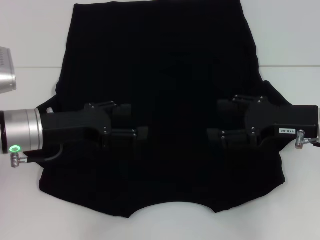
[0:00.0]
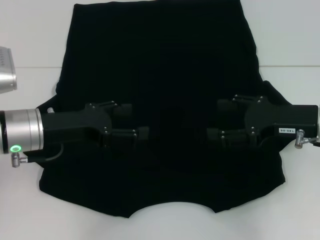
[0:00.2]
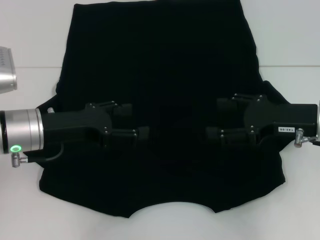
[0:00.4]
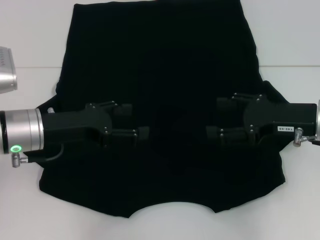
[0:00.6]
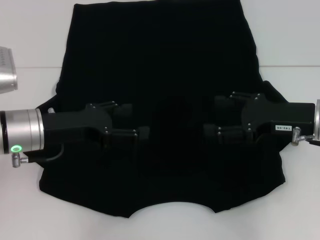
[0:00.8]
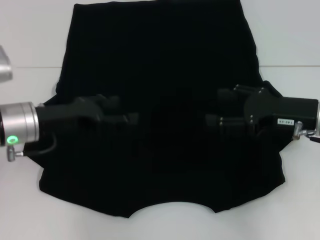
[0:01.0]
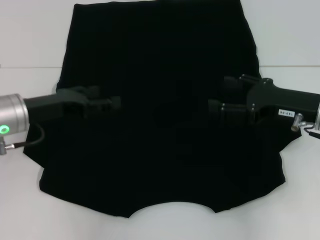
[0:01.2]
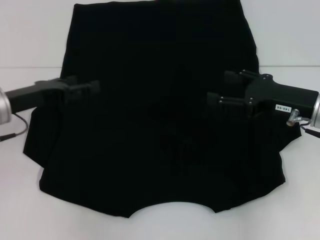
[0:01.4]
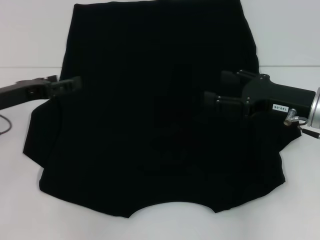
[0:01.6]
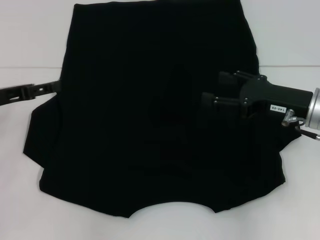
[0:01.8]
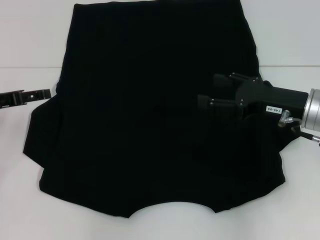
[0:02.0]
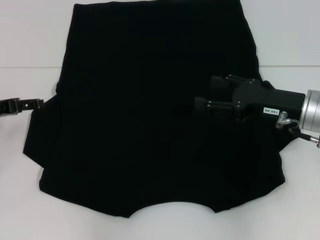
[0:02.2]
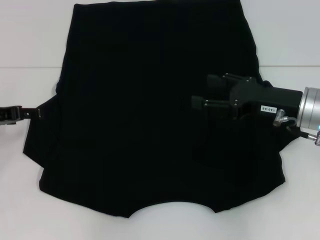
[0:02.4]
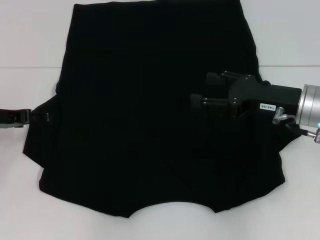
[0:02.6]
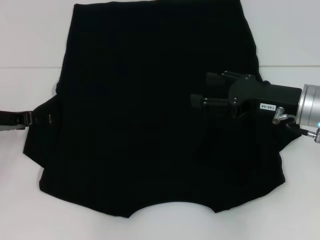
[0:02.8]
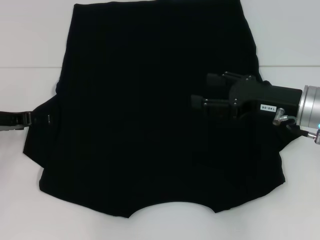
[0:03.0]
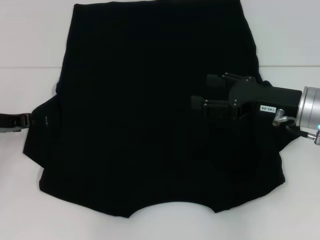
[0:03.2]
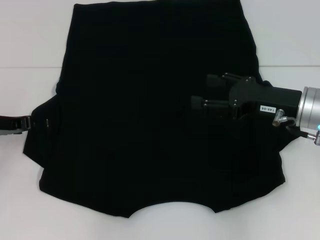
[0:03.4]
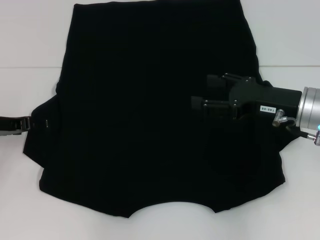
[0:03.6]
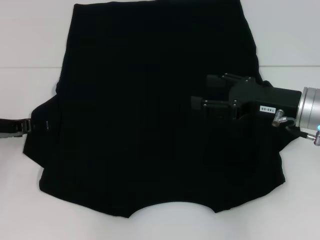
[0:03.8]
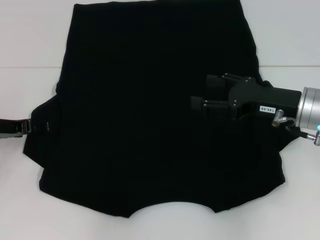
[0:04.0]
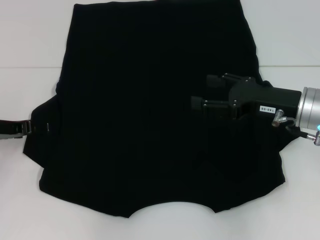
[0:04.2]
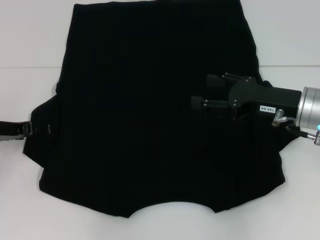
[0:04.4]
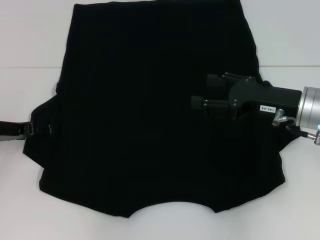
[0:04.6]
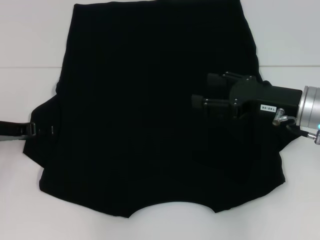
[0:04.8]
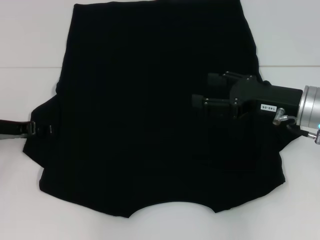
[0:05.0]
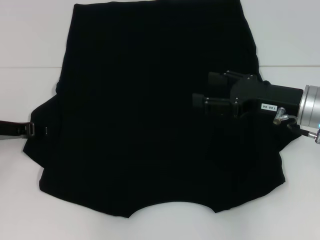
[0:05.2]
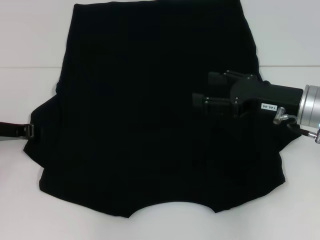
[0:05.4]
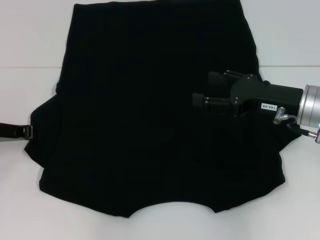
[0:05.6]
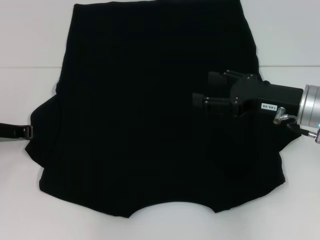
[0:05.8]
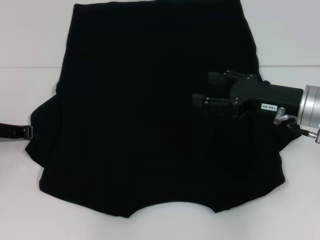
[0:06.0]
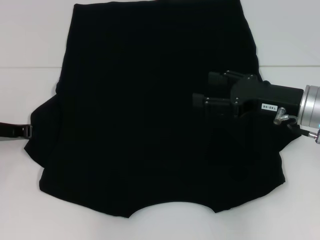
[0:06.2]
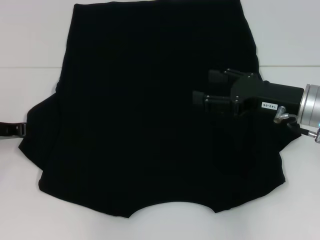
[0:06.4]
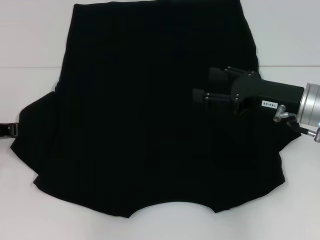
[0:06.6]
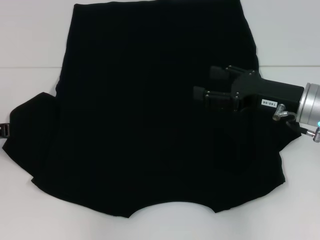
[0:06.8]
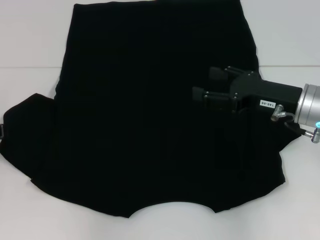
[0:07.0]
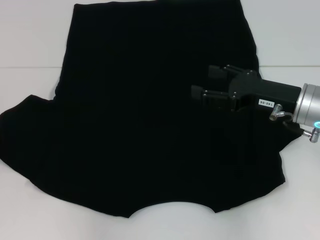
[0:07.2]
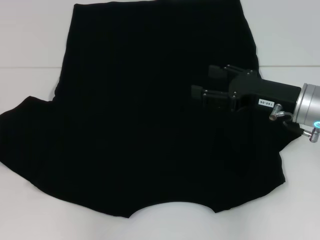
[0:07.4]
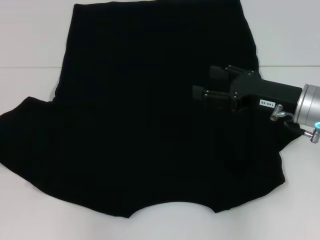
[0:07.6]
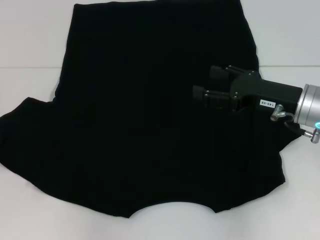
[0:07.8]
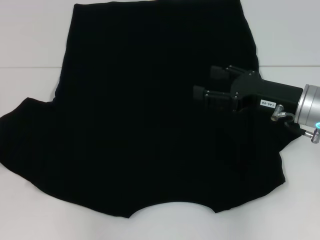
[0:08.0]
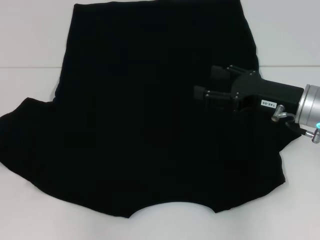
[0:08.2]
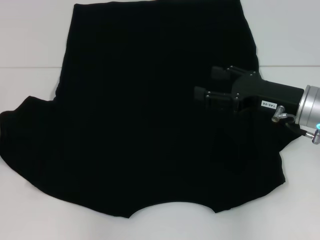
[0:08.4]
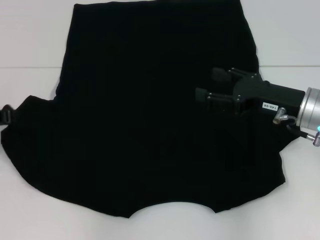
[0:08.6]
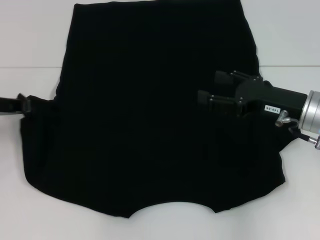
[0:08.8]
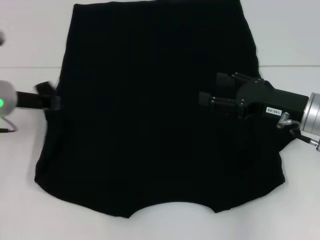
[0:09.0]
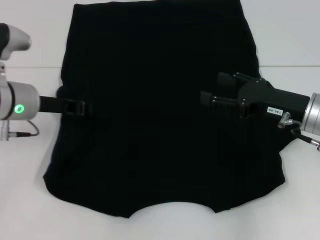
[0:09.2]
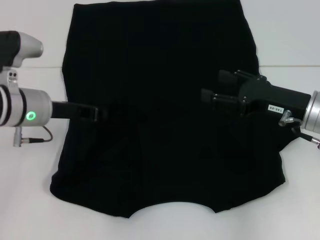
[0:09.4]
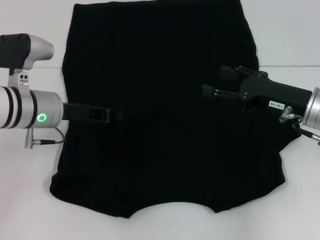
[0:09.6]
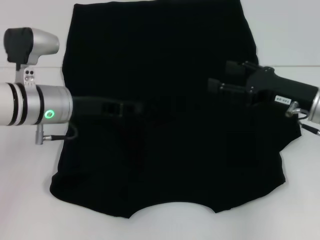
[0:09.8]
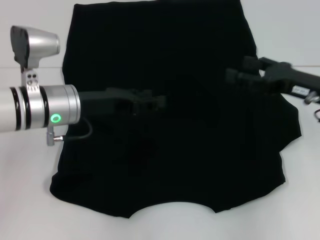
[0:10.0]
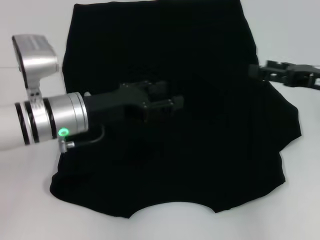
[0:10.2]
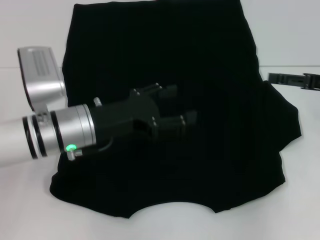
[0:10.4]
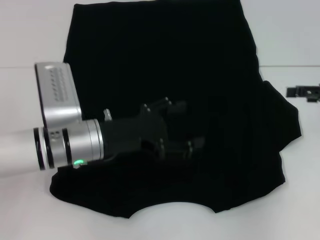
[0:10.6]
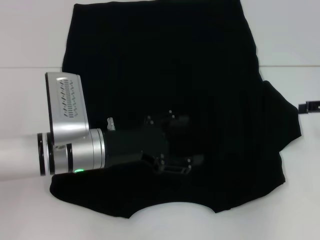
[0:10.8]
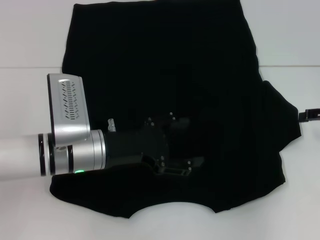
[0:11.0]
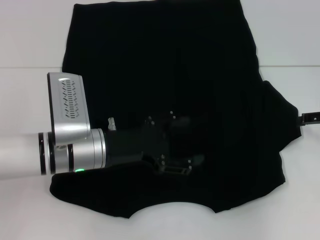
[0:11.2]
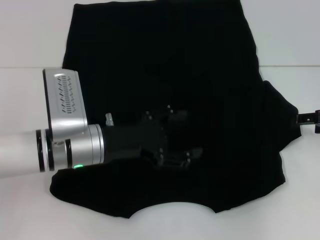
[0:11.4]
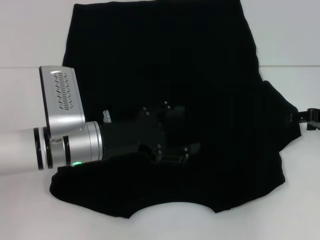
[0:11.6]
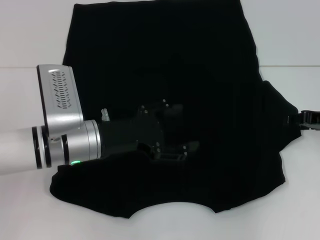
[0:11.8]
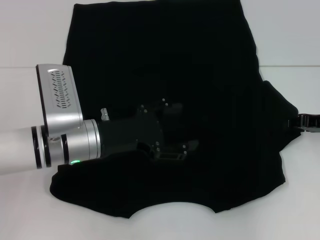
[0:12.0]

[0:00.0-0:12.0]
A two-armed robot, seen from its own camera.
Step, 0:00.0 to 0:09.8: Fold the bottom left sleeve with your left hand.
0:00.0 to 0:01.6: The left gripper travels to the left by roughly 5 cm.
0:03.0 to 0:04.4: There are only small adjustments of the grippers.
0:06.0 to 0:07.6: The left gripper moves some 5 cm.
0:07.6 to 0:09.0: The left gripper shifts roughly 10 cm to the right.
0:09.0 to 0:10.4: Both grippers move to the right, some 10 cm. The left gripper opens its fingers.
0:10.4 to 0:12.0: The right gripper moves downward, roughly 5 cm.

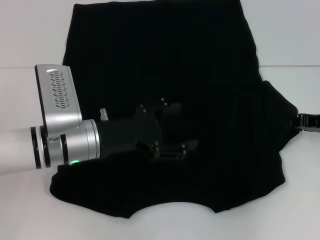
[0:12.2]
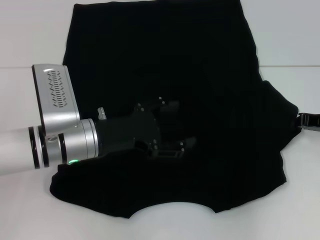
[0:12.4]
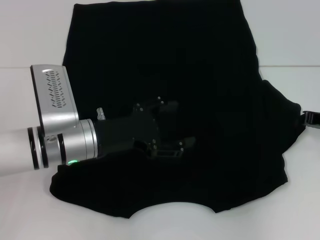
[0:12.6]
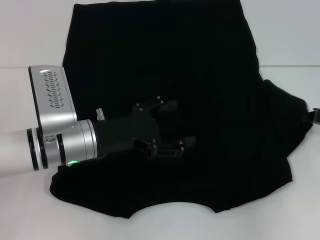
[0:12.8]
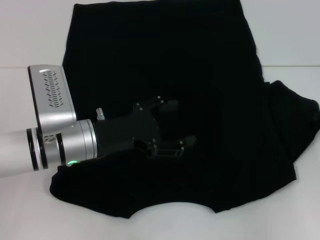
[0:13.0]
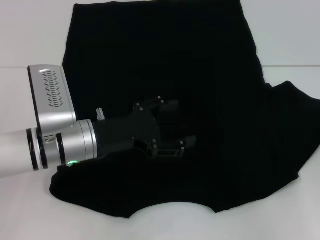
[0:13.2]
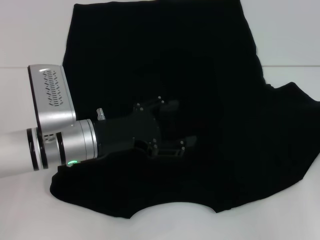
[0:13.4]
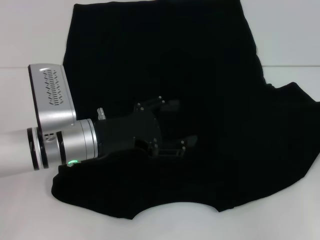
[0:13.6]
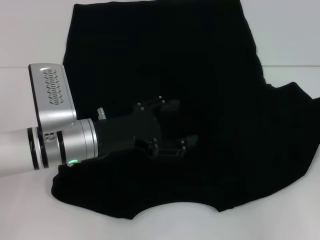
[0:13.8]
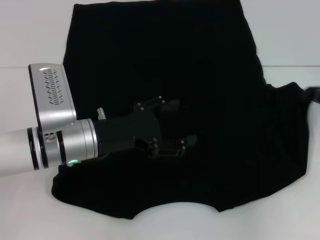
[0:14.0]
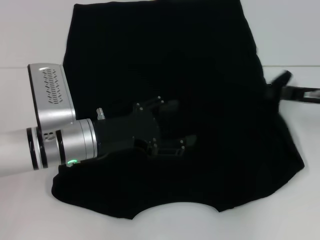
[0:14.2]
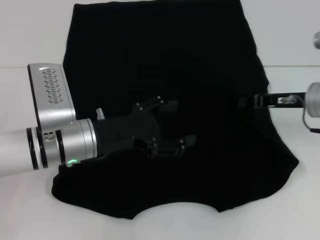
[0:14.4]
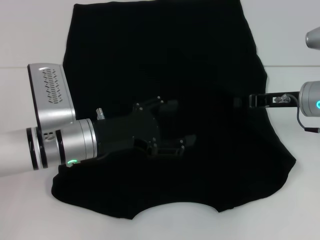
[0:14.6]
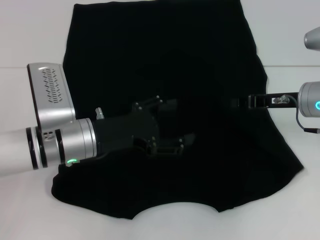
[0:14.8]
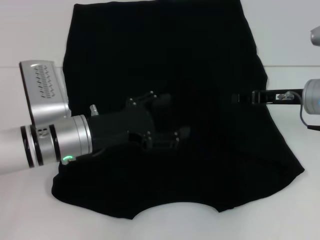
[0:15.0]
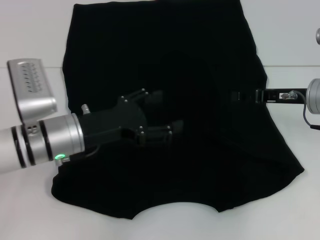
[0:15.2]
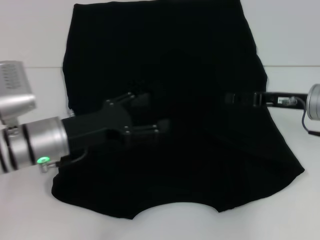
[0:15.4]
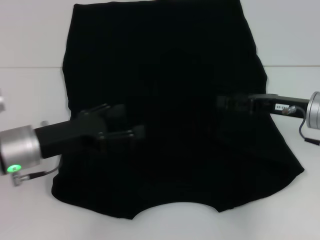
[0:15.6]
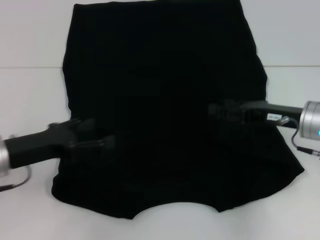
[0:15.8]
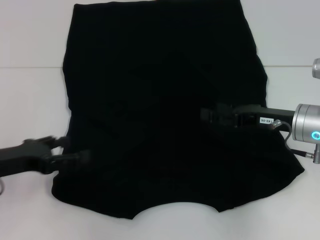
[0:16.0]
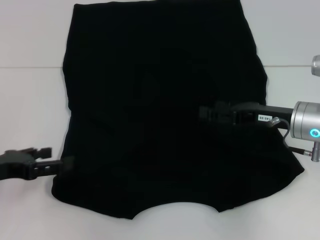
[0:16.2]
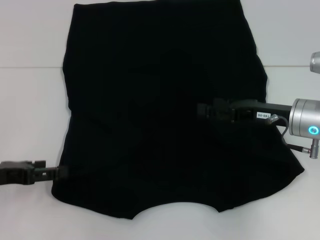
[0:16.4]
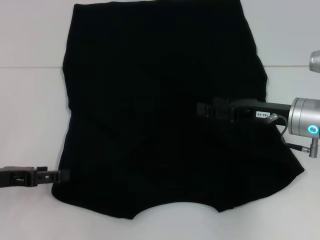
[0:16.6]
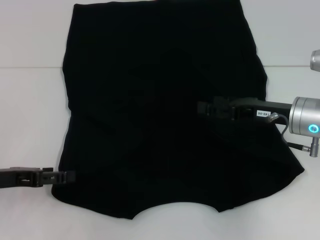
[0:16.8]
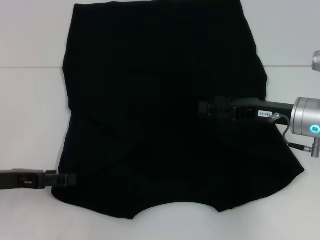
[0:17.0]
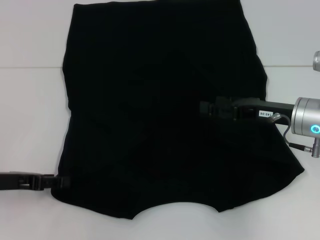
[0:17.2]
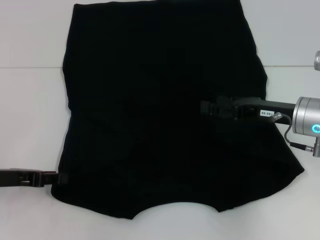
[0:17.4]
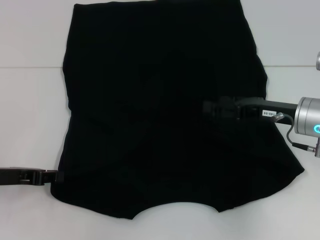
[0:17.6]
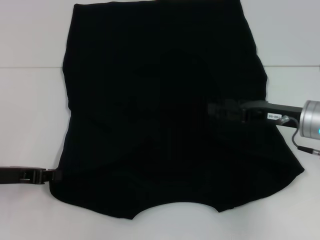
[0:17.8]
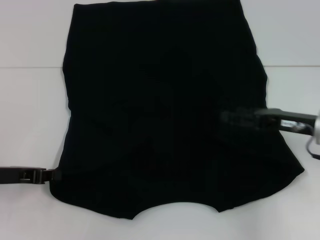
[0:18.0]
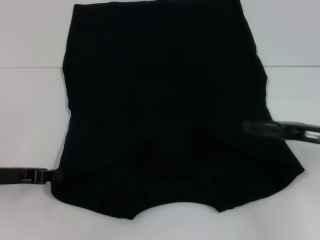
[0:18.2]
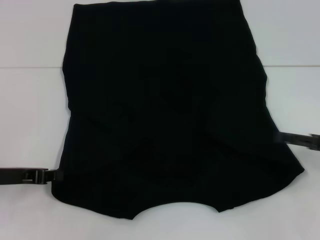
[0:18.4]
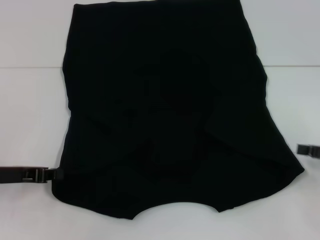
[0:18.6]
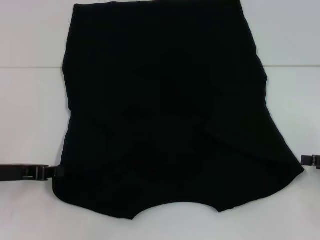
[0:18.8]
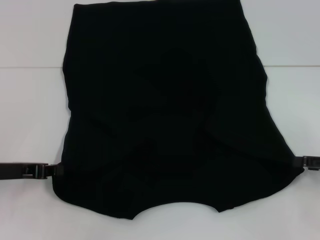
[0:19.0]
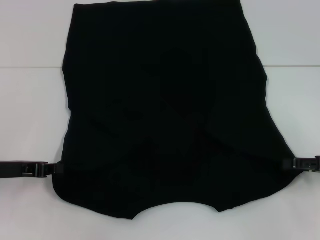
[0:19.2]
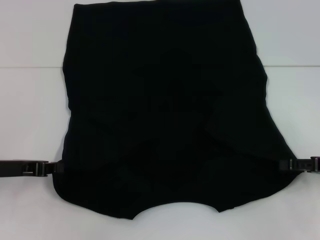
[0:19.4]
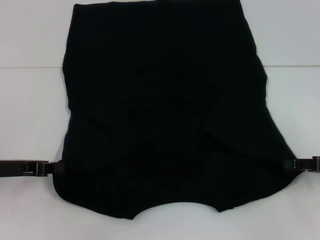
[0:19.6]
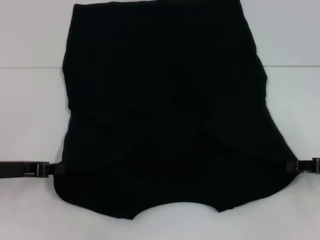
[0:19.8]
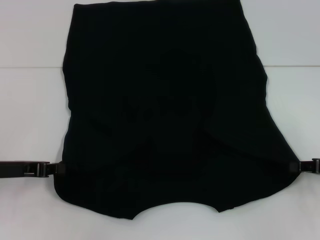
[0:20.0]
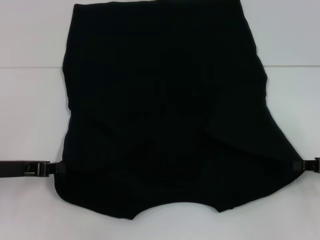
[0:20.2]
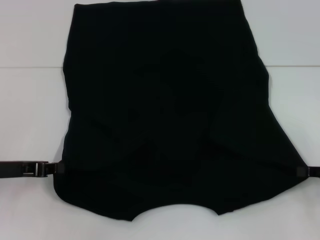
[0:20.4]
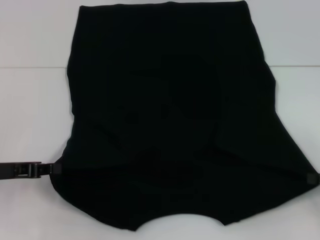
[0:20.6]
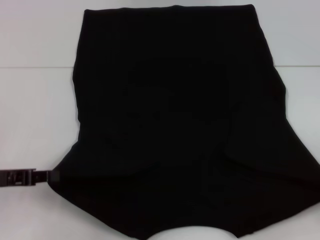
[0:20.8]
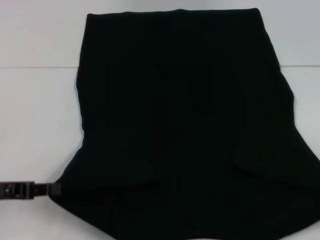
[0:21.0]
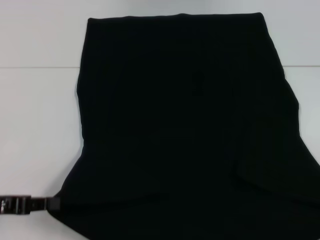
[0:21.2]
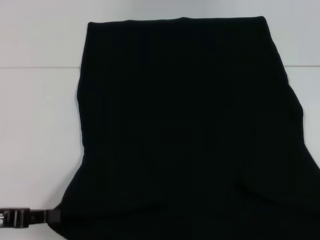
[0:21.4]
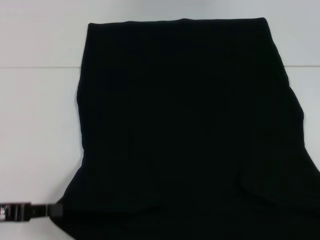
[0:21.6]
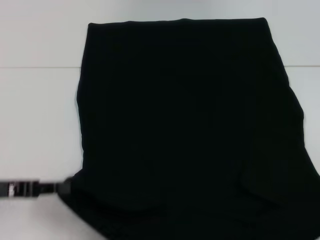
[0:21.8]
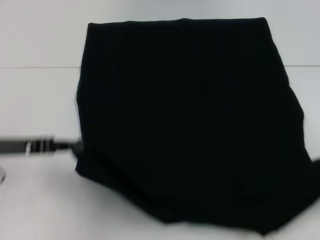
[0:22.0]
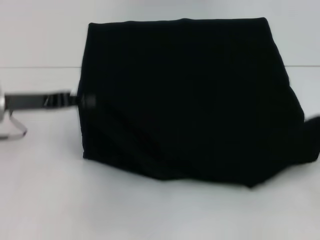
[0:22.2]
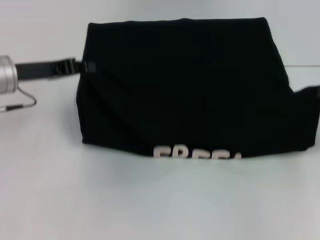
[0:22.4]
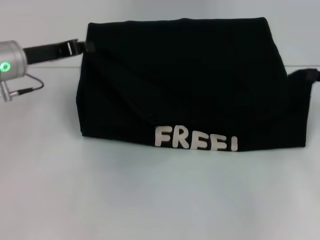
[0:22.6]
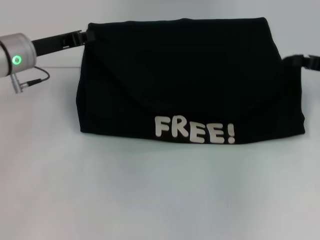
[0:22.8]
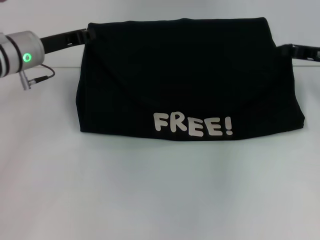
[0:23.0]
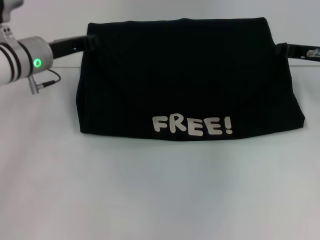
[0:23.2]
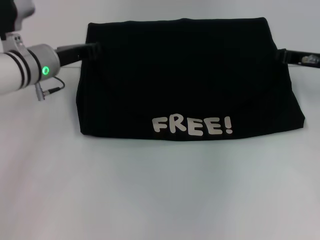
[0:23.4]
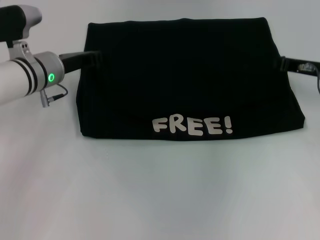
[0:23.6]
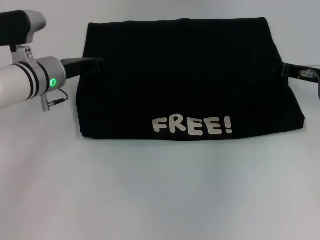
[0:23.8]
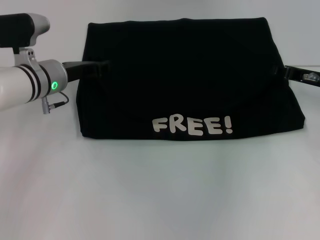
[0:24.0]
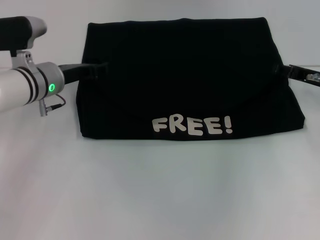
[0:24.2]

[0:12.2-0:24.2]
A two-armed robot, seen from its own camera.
Step, 0:12.2 to 0:15.0: Fold the bottom right sleeve with your right hand.
Step, 0:15.2 to 0:18.4: Grab the bottom left corner with your left hand.
Step, 0:18.6 to 0:20.6: Grab the bottom right corner with your right hand.
0:12.2 to 0:13.8: The right gripper goes about 5 cm to the right, and closes up.
0:13.8 to 0:15.2: The right gripper goes about 10 cm to the left, and opens.
0:15.2 to 0:16.6: The left gripper moves to the left, some 15 cm. Meanwhile the right gripper opens up.
0:16.6 to 0:18.2: The right gripper moves to the right, about 10 cm, while the left gripper closes up.
0:18.2 to 0:19.8: The right gripper goes about 5 cm to the right.
0:19.8 to 0:21.2: The right gripper moves backward and to the right, about 10 cm, and closes, while the left gripper moves backward, approximately 5 cm.
0:21.2 to 0:22.6: The grippers both shift forward by about 20 cm.
0:22.6 to 0:24.2: The left gripper moves downward, roughly 5 cm, and opens. Meanwhile the right gripper heads to the left, covering about 5 cm, and opens up.
